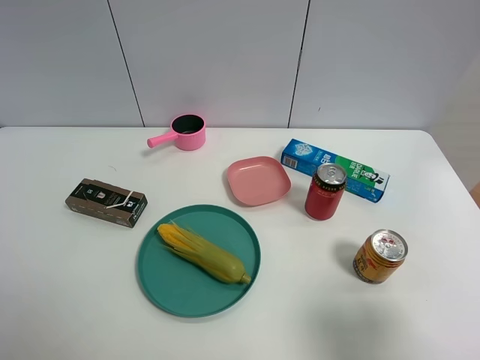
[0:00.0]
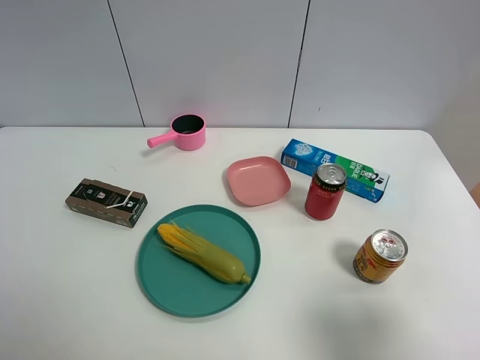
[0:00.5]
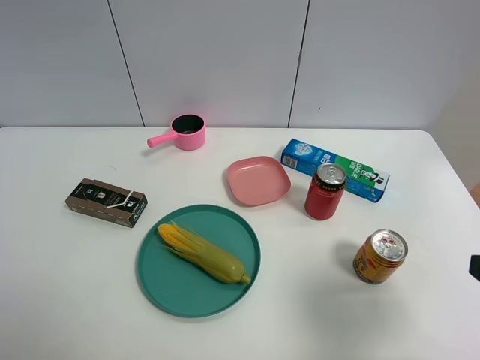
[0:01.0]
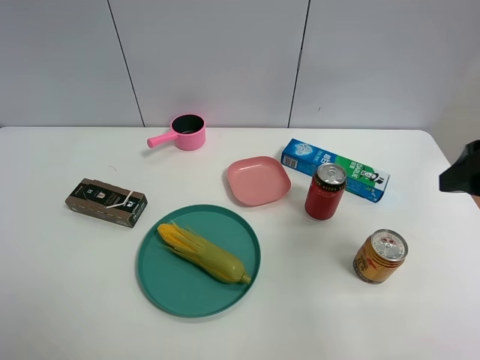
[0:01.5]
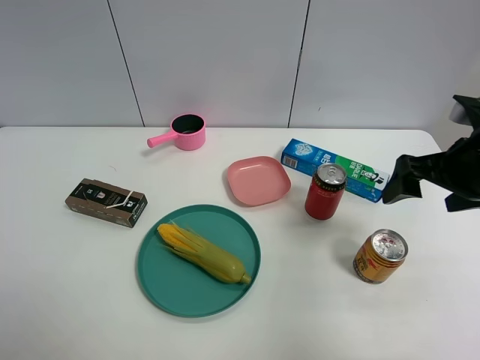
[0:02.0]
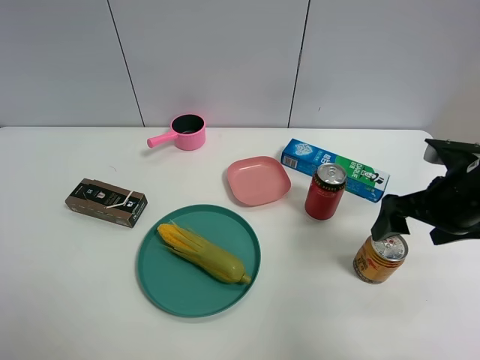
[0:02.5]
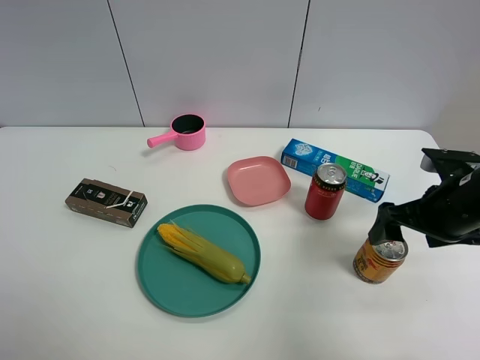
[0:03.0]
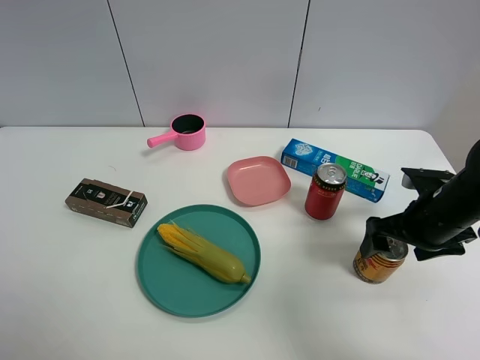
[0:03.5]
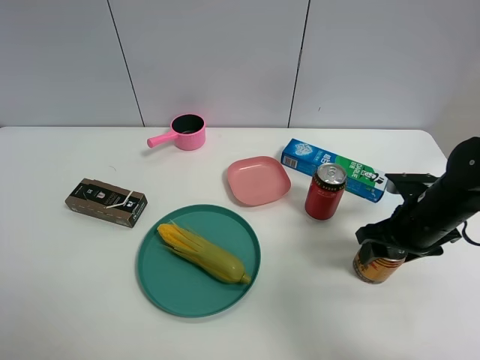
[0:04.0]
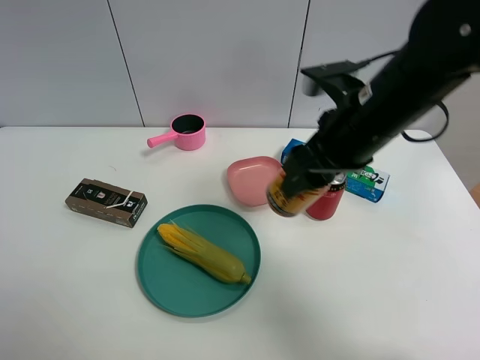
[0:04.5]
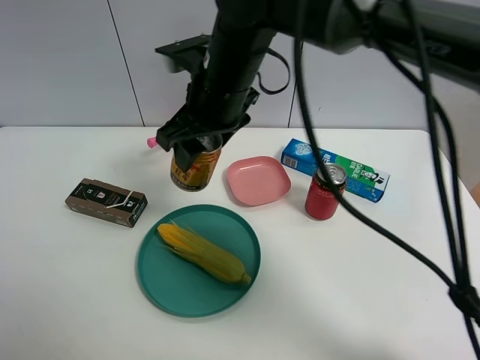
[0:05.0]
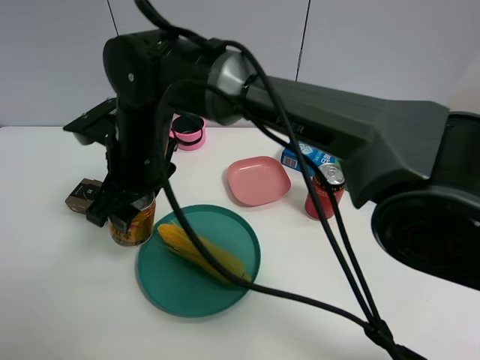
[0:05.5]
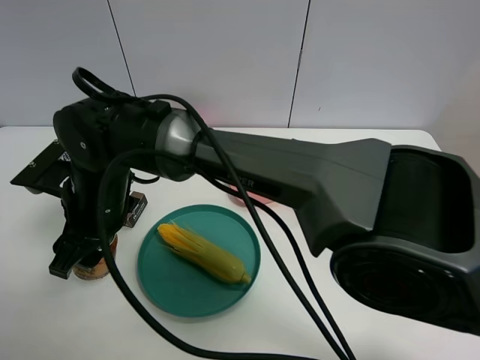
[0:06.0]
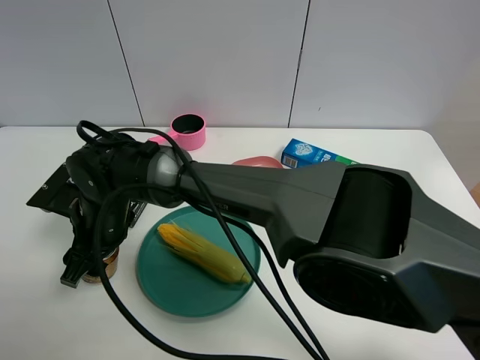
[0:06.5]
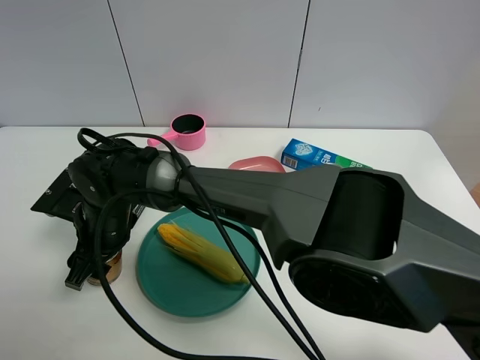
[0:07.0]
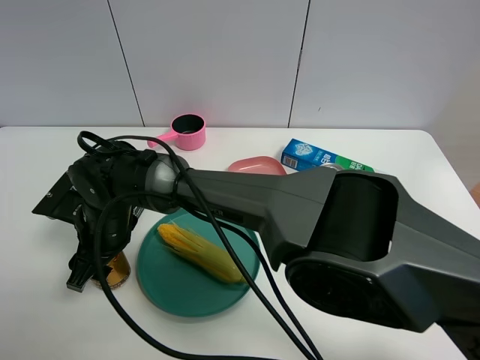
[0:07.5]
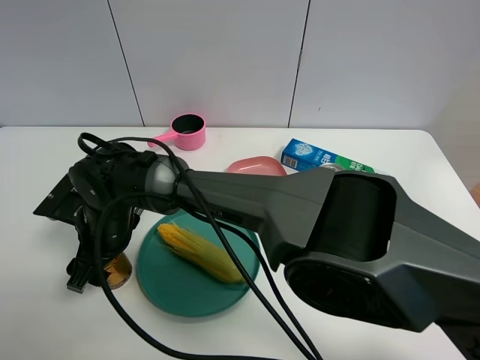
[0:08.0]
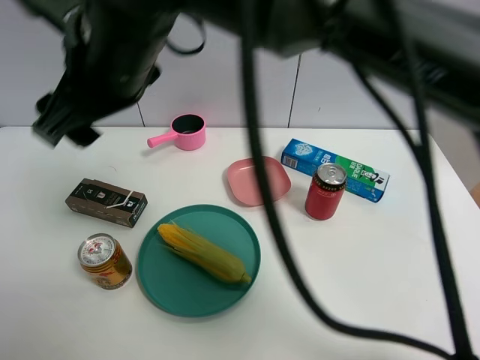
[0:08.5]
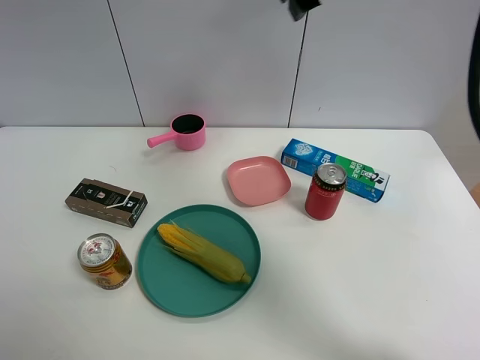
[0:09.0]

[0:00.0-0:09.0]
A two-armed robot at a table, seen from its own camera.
Task of the whole recording: the gripper move the object.
Step, 0:00.0 to 0:03.5: Grasp the red bull with the right gripper.
Step, 0:04.0 to 0:08.0: Place the red bull on the table with the right gripper.
0:00.0 to 0:02.0: The right gripper goes approximately 25 cm forward, and closes and opens again.
0:02.0 to 0:04.5: The right gripper travels to the left by some 15 cm, and closes.
0:04.5 to 0:07.0: The right gripper shifts about 35 cm to the left and downward.
0:07.0 to 0:09.0: The right gripper goes approximately 40 cm upward and to the right, and opens up.

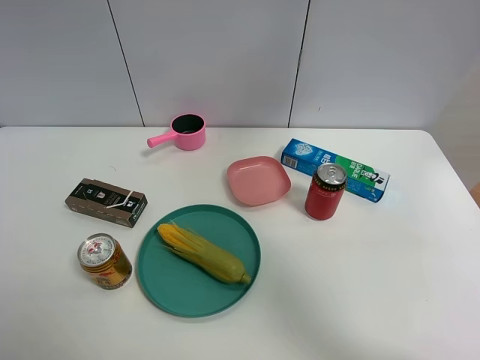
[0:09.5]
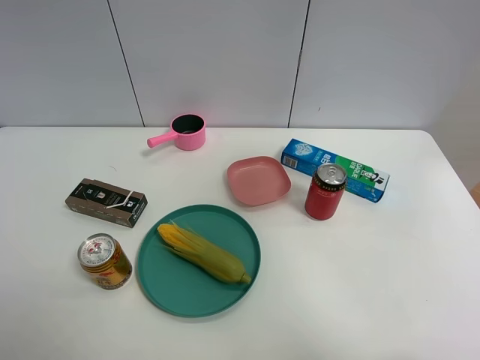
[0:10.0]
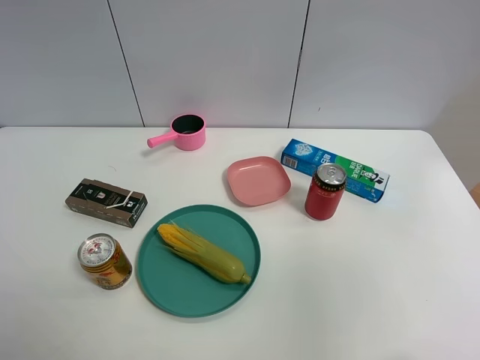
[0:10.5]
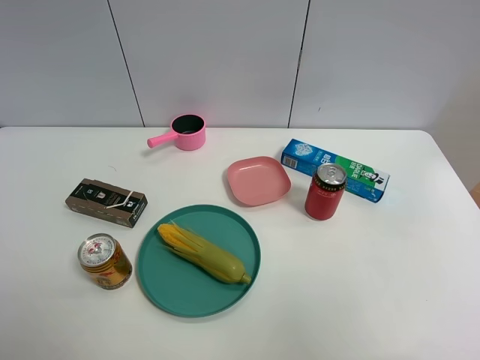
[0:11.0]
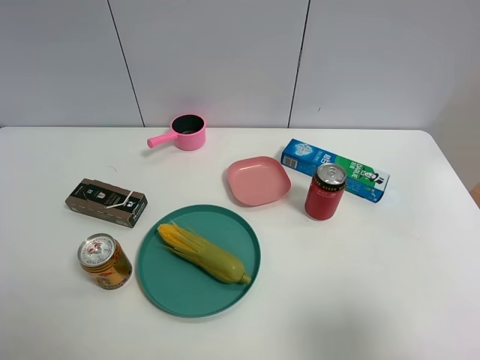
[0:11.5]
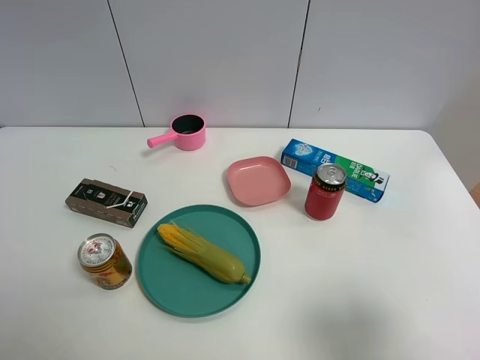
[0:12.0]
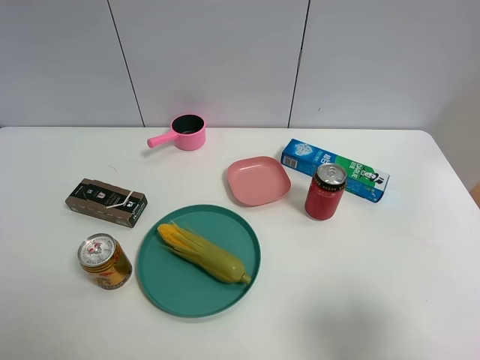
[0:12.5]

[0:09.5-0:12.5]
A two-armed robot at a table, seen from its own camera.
Task of the whole recording: the gripper move the object.
0:09.5 to 0:11.0: The right gripper travels backward by roughly 35 cm.
0:11.0 to 0:12.5: The right gripper heads downward and forward, covering approximately 15 cm.

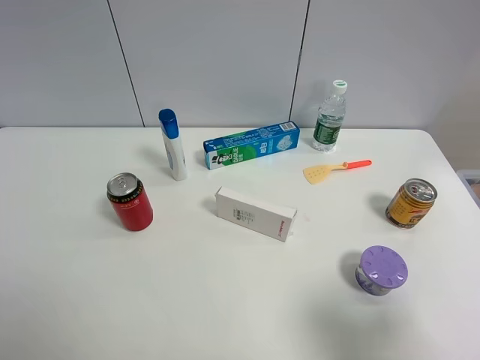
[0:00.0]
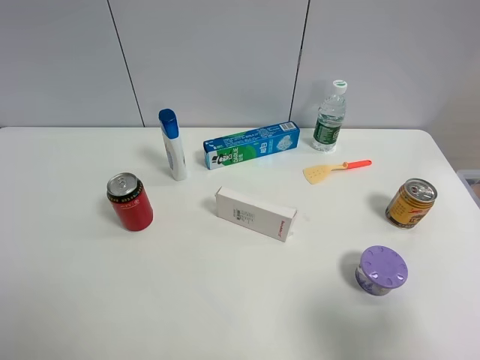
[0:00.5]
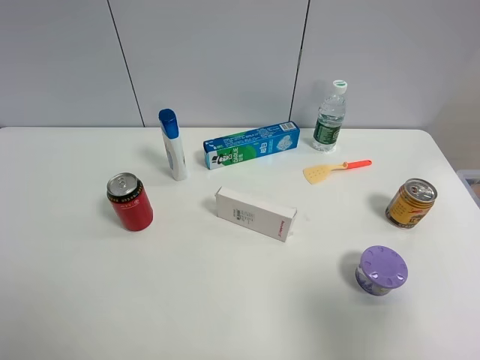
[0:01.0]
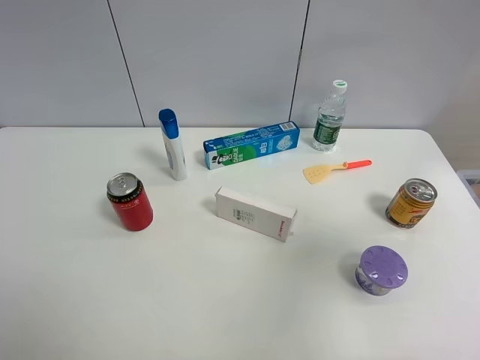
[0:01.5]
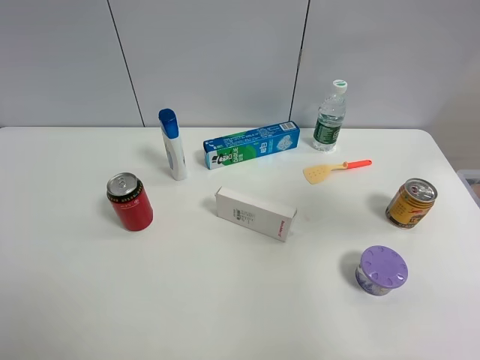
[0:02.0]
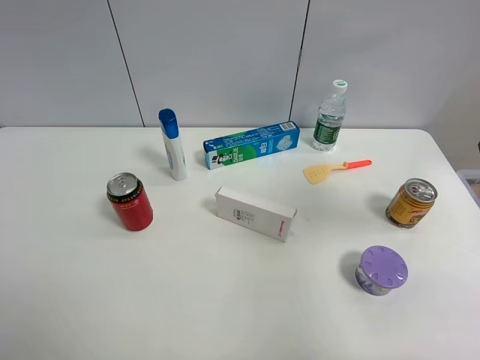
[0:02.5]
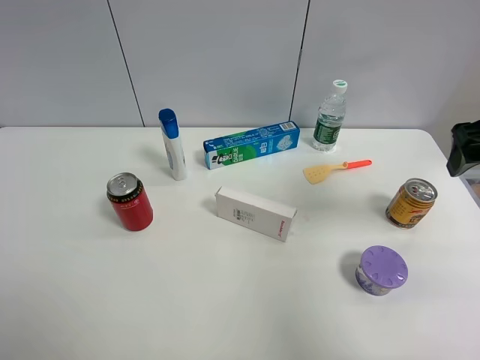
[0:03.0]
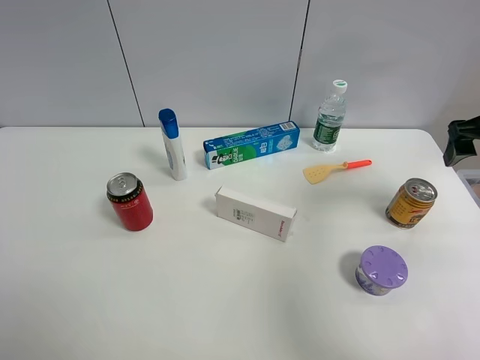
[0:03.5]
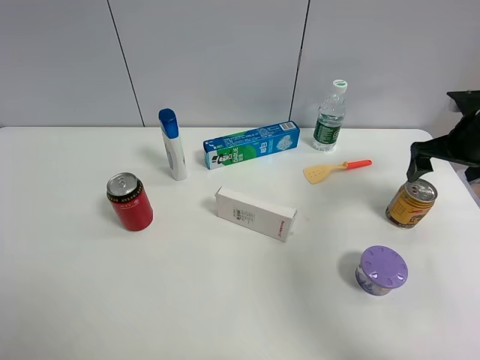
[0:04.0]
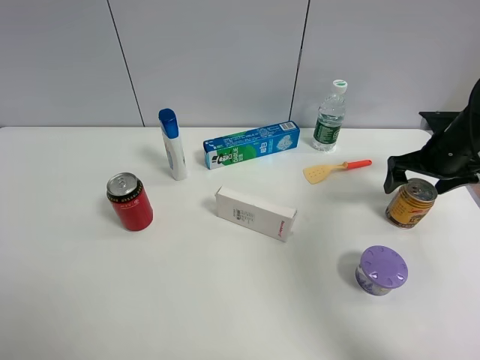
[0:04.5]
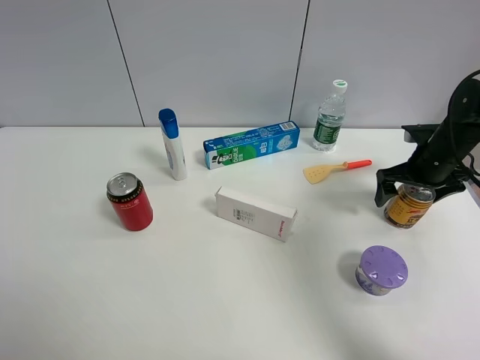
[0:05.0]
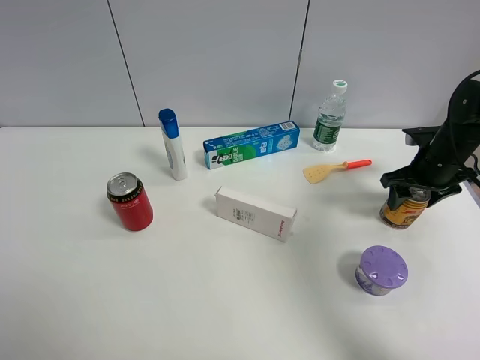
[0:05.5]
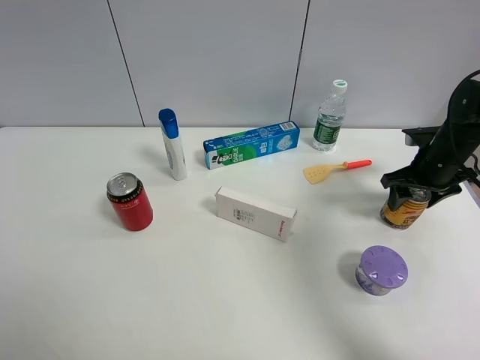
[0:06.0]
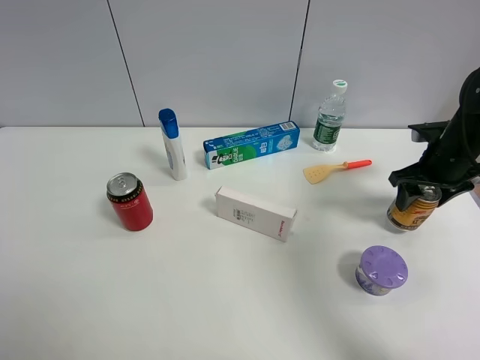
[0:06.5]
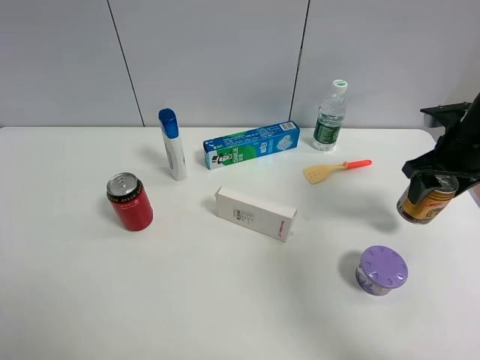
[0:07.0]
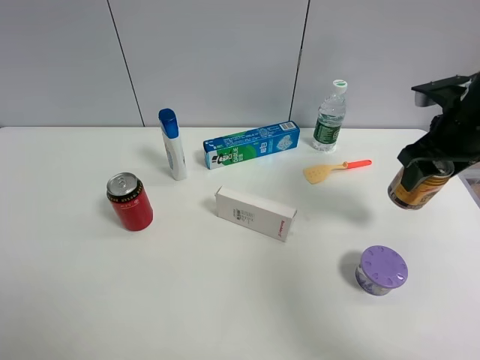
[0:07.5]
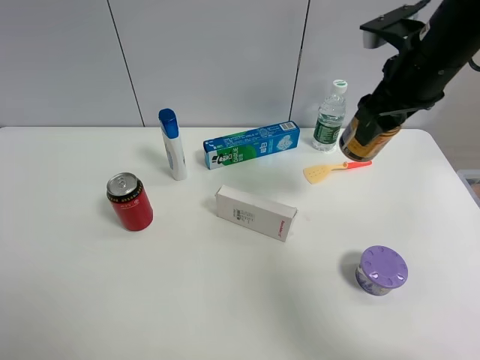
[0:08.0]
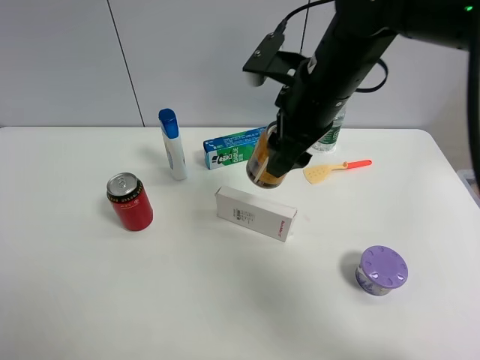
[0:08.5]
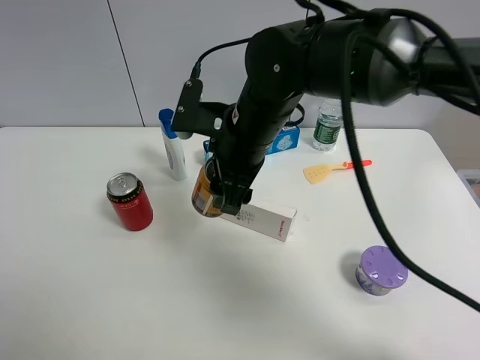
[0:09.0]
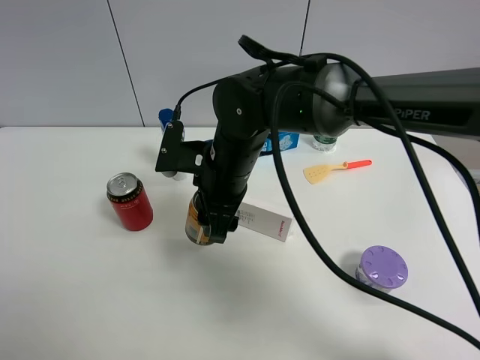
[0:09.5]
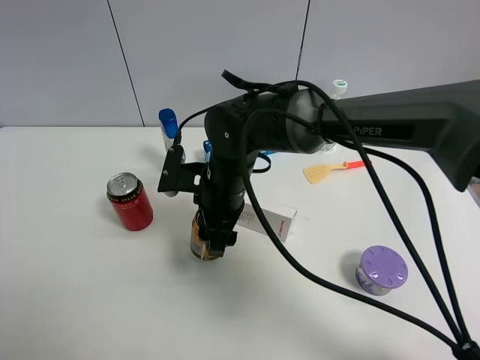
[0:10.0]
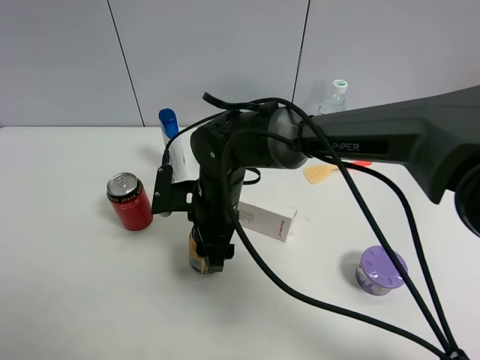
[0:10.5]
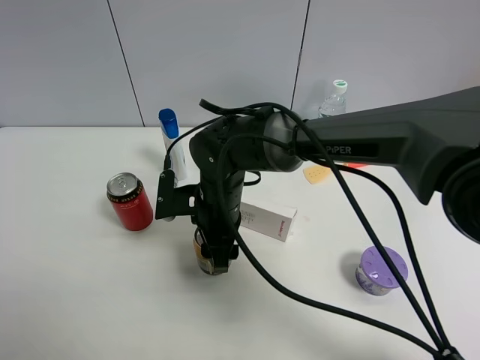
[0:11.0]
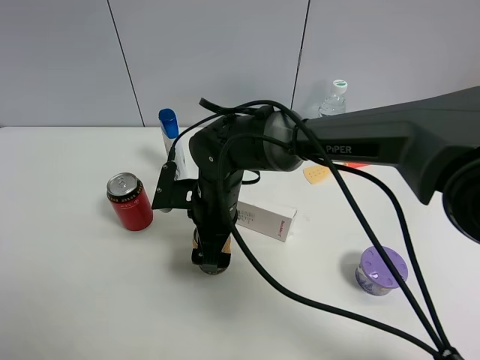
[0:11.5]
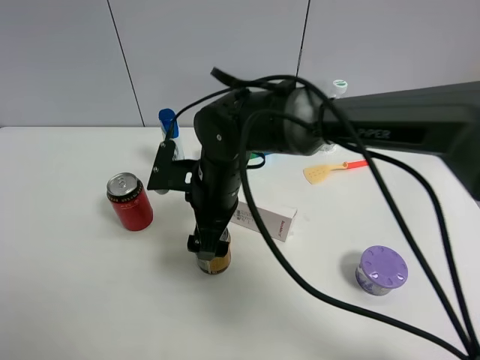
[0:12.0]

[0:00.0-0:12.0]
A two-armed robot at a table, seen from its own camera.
Task of the whole recording: the gripper move the object.
Step, 0:00.0 to 0:05.5: Grasp the red bull with the right gripper.
Step, 0:06.0 to 0:12.0: Place the red bull on the table with the right gripper.
0:00.0 to 0:02.0: The right gripper travels forward and upward by about 25 cm.
0:02.0 to 0:04.0: The right gripper is displaced downward and forward by roughly 20 cm.
0:04.0 to 0:06.0: The right gripper travels downward by approximately 5 cm, and closes.
0:06.0 to 0:08.0: The right gripper heads upward and to the left, covering some 20 cm.
0:08.0 to 0:10.0: The right gripper heads to the left and downward, covering roughly 30 cm.
0:10.0 to 0:12.0: The right gripper opens.

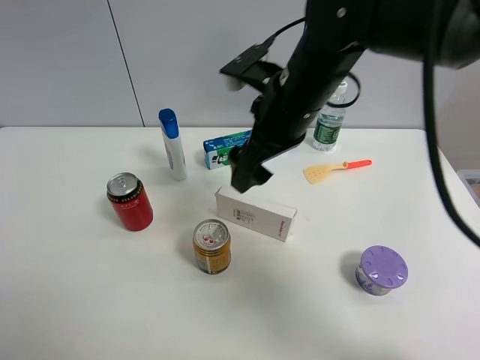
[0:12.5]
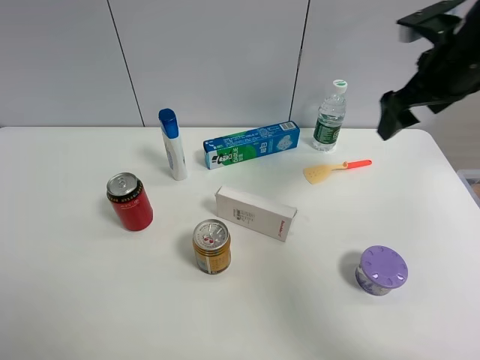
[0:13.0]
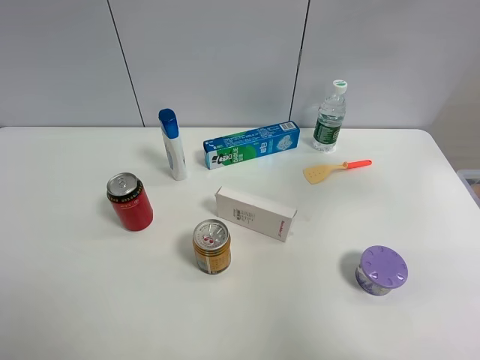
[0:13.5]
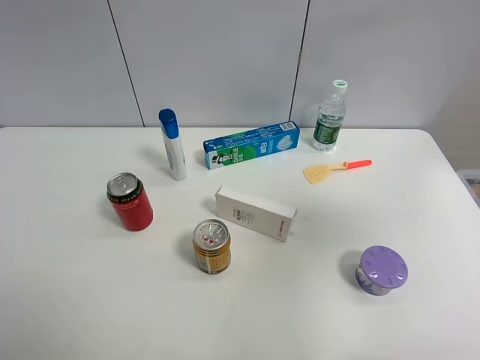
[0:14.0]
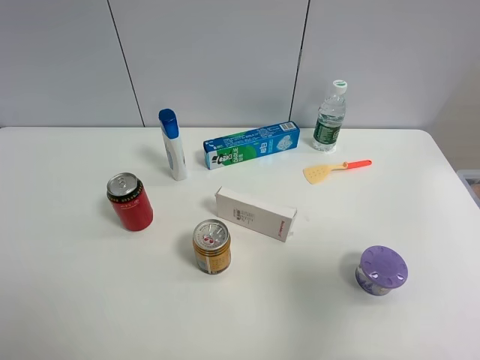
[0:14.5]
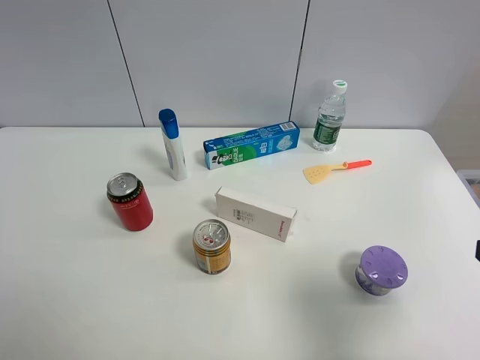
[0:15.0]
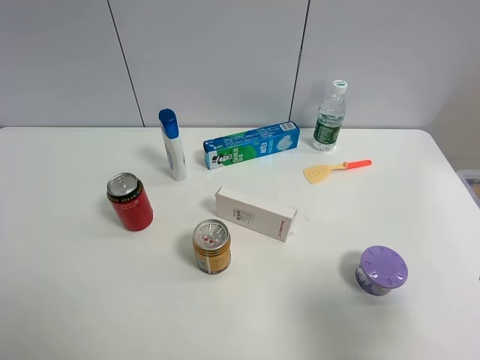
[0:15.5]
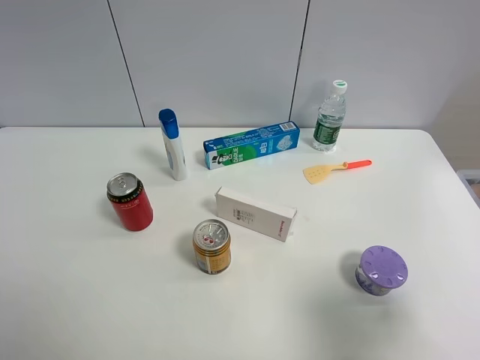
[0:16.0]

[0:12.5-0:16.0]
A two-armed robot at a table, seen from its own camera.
Task of the whole recording: the gripper move the object.
0:12.5 to 0:14.5: The right gripper goes approximately 35 cm backward and to the right.
0:14.5 to 0:16.0: The right gripper goes approximately 5 cm downward.
